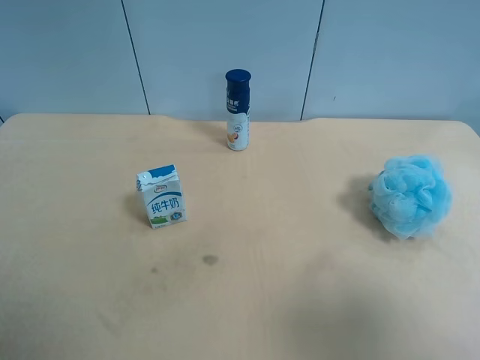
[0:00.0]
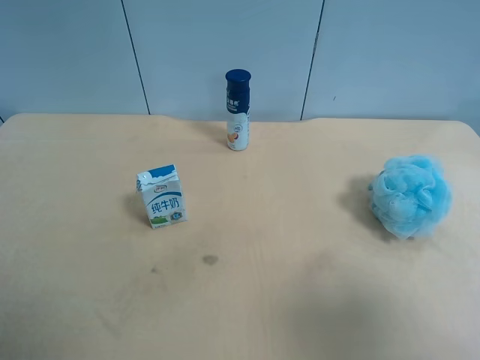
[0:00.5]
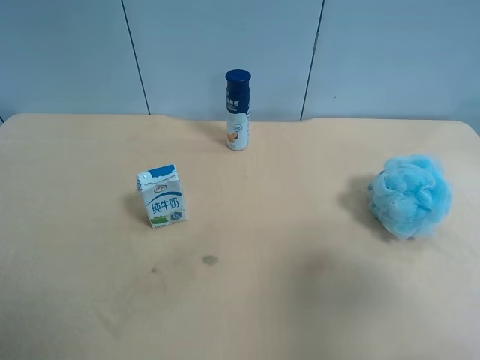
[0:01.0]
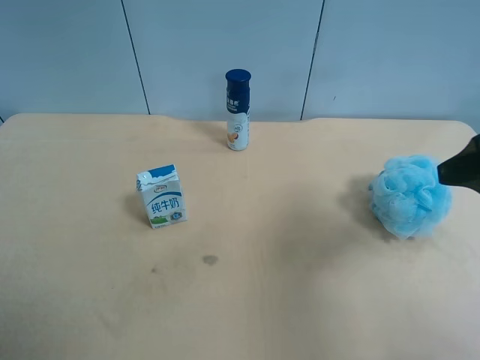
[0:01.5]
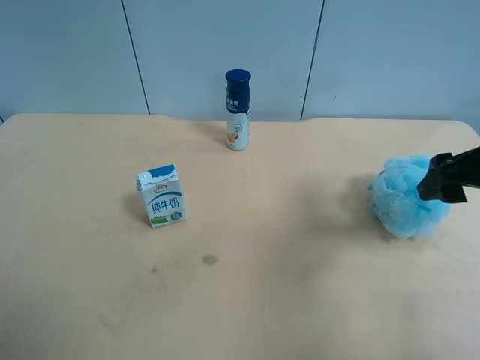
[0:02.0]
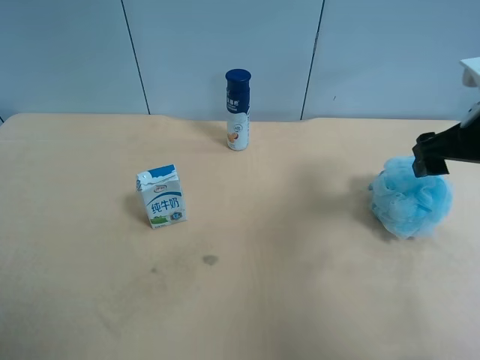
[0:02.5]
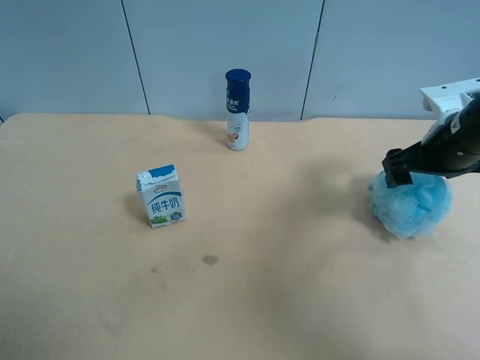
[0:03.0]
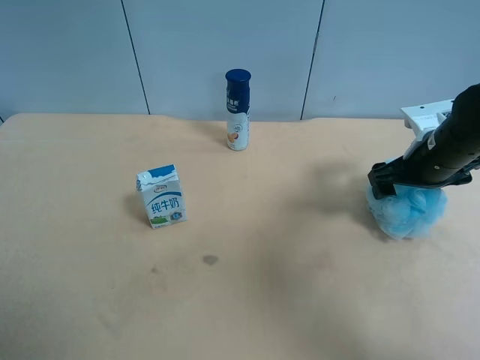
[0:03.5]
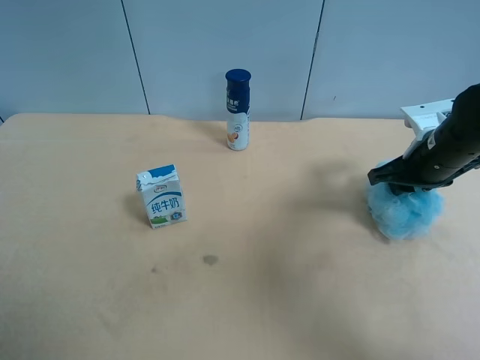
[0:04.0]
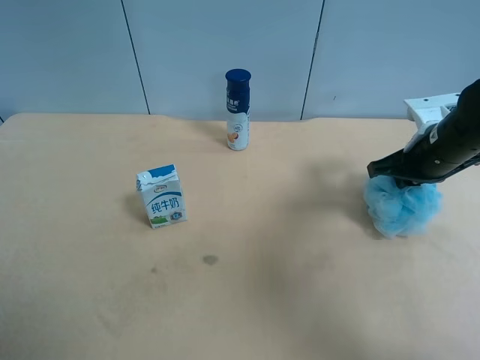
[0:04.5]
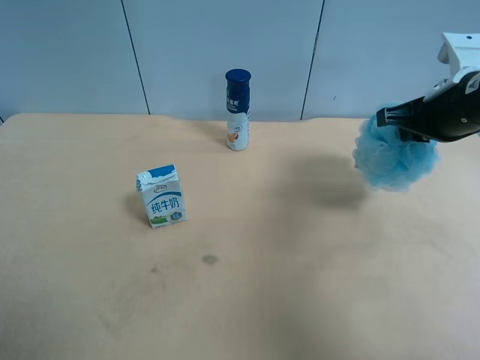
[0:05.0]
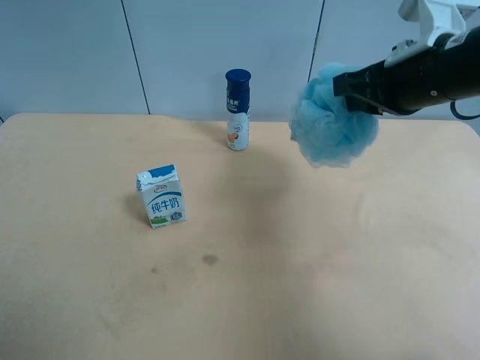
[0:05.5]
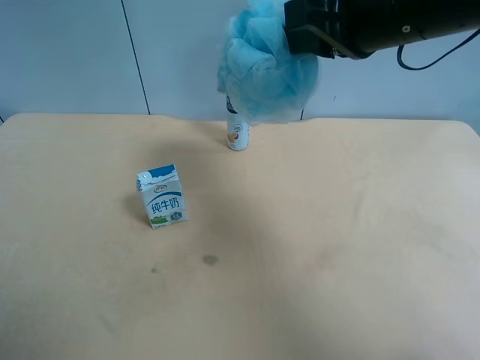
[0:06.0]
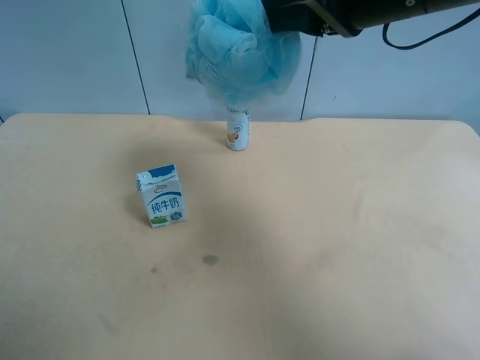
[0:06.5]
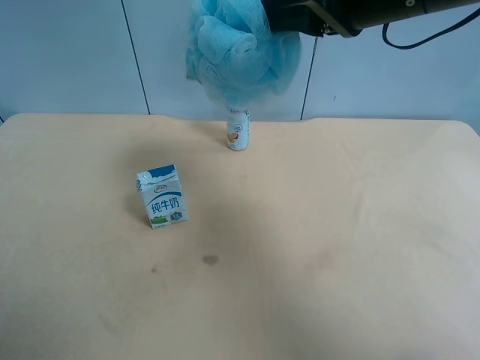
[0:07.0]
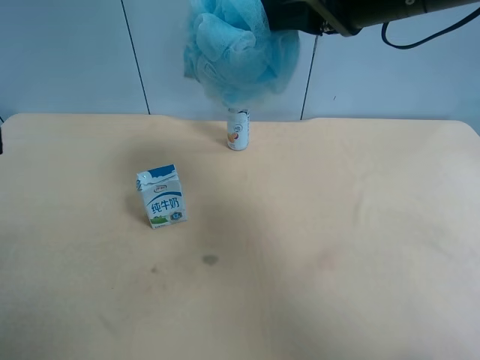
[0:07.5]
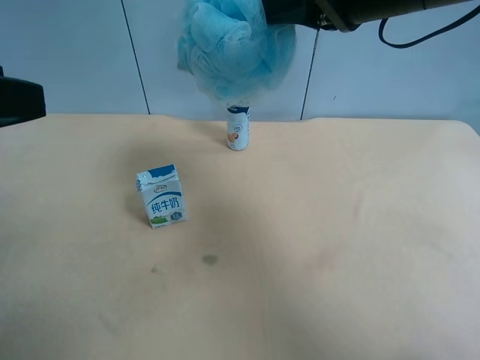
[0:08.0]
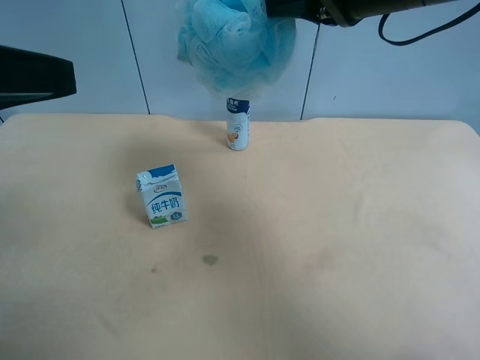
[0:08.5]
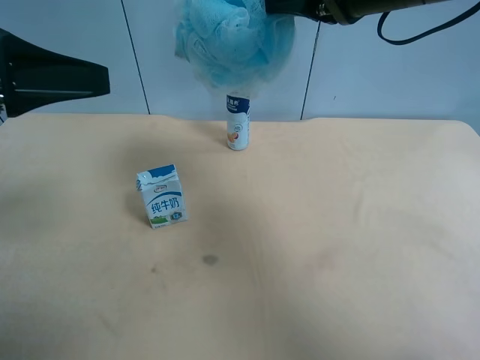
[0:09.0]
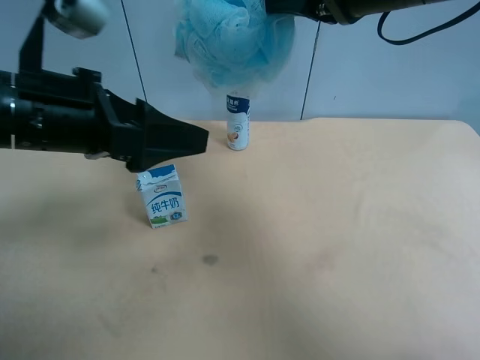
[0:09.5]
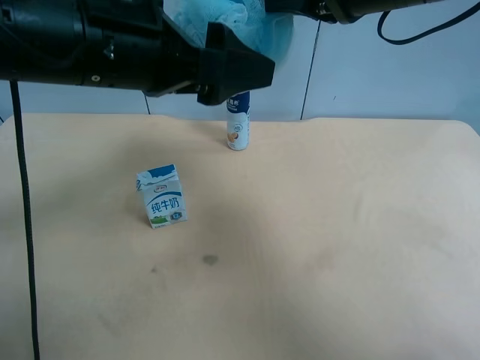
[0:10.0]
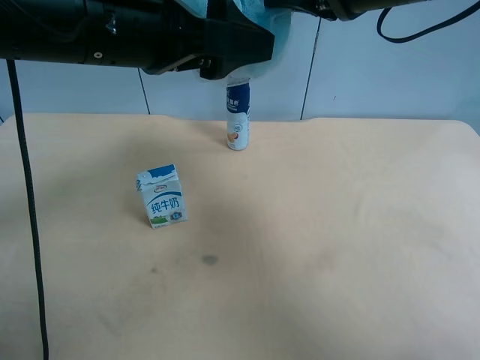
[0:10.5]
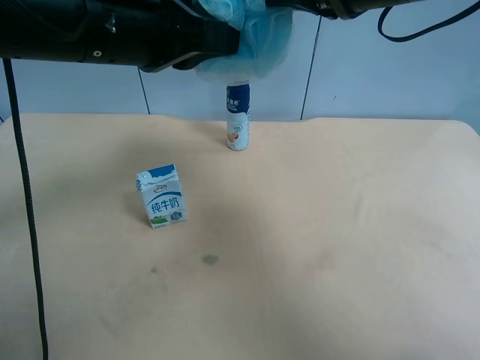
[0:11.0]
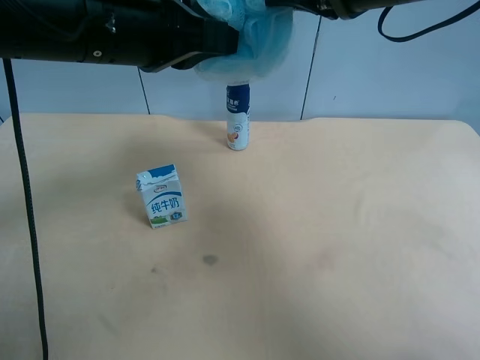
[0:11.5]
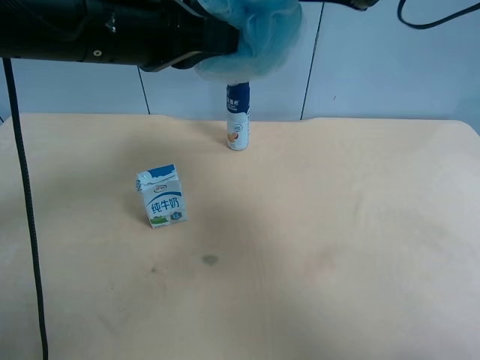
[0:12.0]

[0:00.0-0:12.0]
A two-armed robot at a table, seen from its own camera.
Task of the whole recording: use the right gripper to pick up the item and transfer it from the right gripper to the left gripper.
0:00.0 to 0:02.0: The right gripper shifts about 20 cm forward.
0:02.0 to 0:04.0: The right gripper moves forward and downward, some 15 cm, and closes its fingers.
0:04.0 to 0:06.0: The right gripper moves upward and to the left, approximately 25 cm.
0:06.0 to 0:08.0: The left gripper shifts approximately 15 cm forward and upward.
0:08.0 to 0:10.0: The left gripper goes about 20 cm to the right and forward.
0:10.0 to 0:12.0: The left gripper closes; the right gripper opens its fingers.

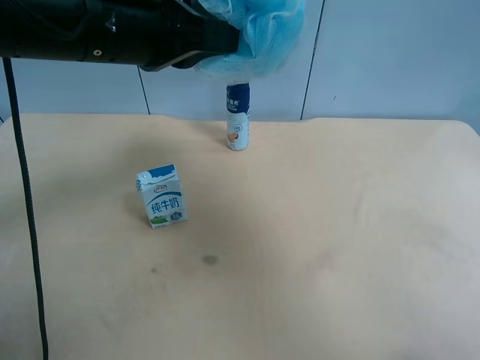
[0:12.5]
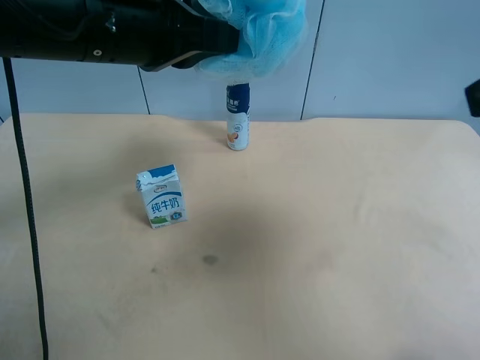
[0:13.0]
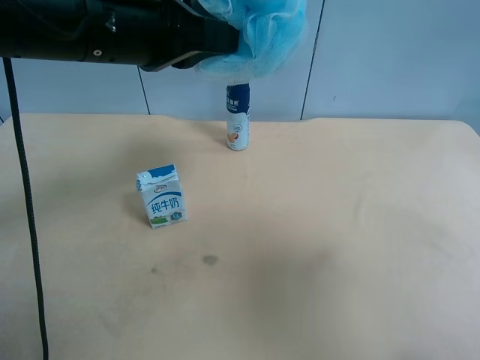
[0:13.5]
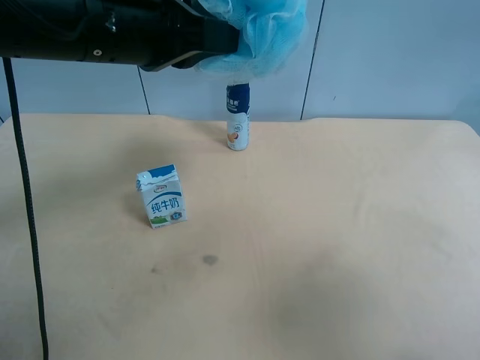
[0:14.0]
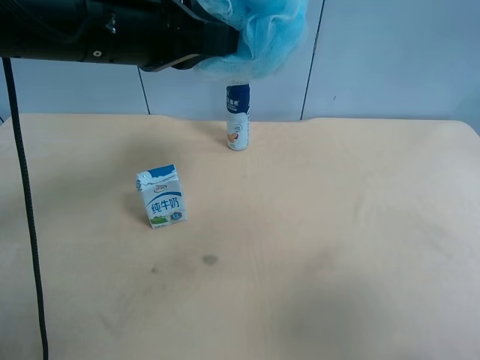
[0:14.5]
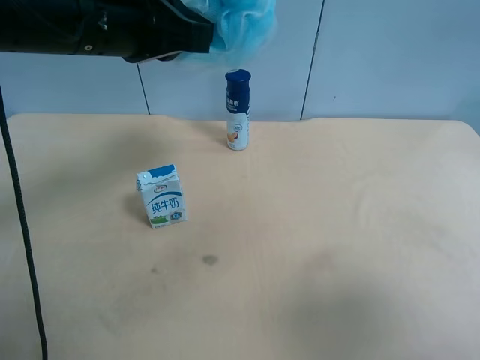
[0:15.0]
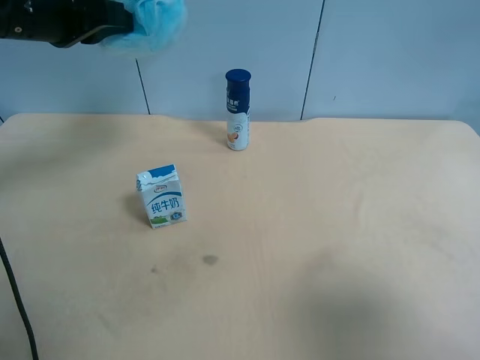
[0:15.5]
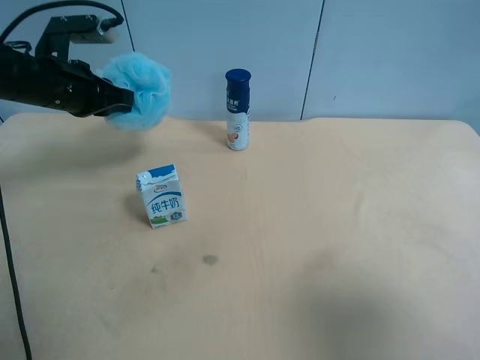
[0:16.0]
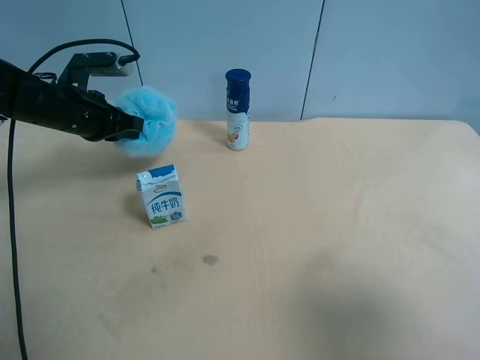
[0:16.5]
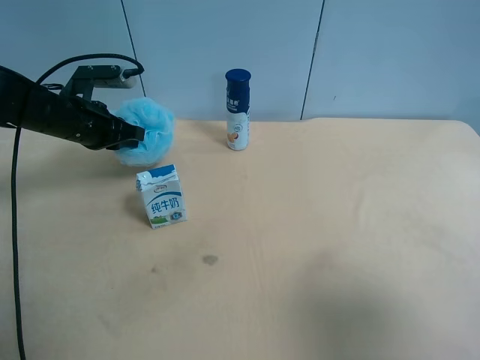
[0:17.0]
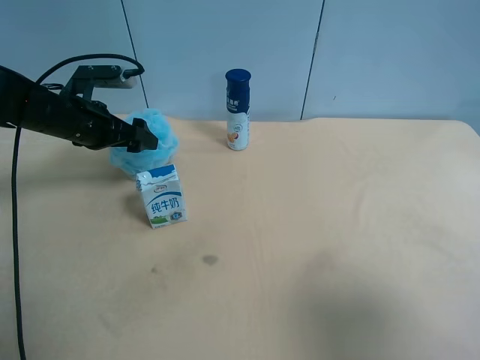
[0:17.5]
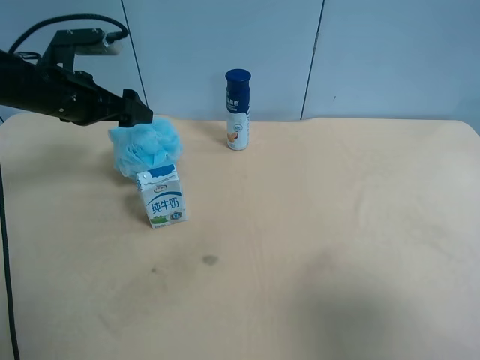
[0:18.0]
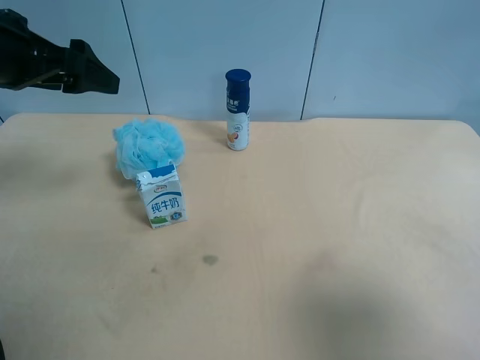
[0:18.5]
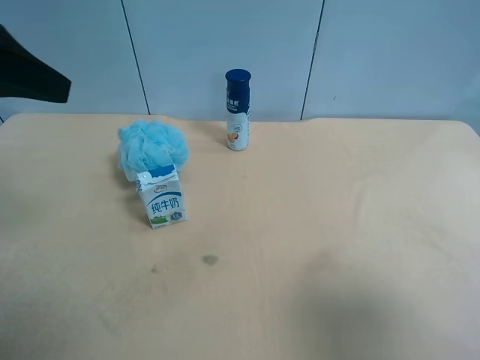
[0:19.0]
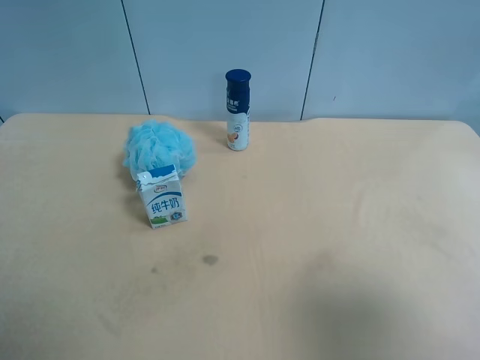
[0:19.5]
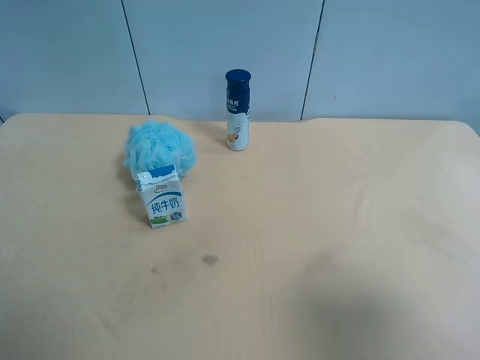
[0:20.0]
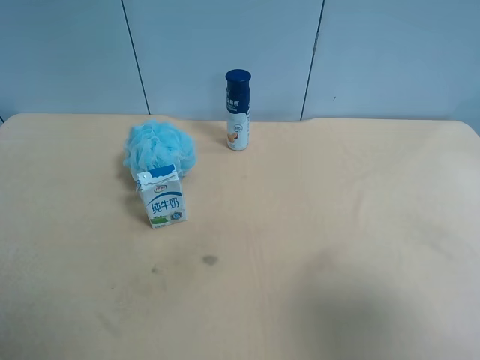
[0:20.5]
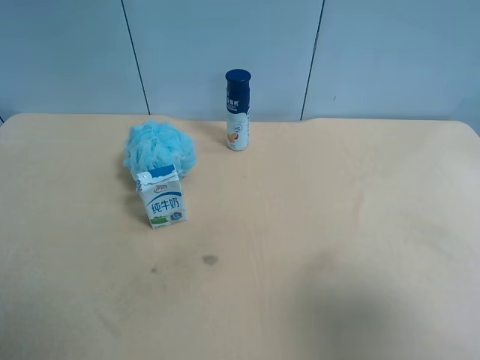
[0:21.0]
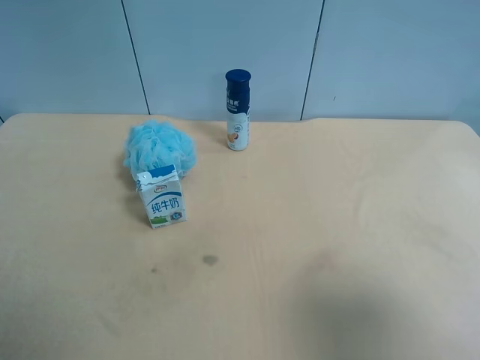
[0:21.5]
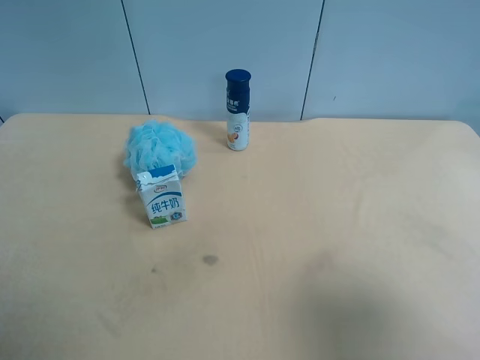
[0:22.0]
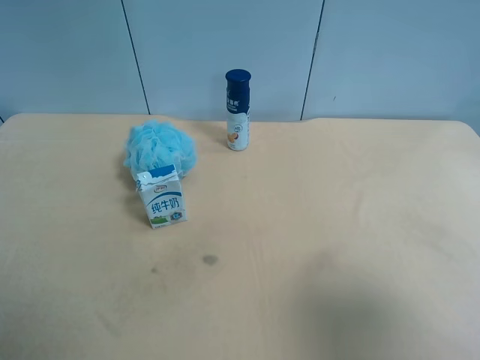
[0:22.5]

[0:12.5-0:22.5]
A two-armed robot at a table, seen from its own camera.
Task of the whole recording: use the right gripper to pick up the item and transfer it from the right gripper to the left gripper.
0:12.5 to 0:14.5: The right gripper is displaced backward, downward and to the right by some 20 cm.
0:14.5 to 0:16.5: The left gripper goes approximately 25 cm downward, to the left and forward.
0:16.5 to 0:18.5: The left gripper moves upward and backward, some 15 cm, and opens up.
0:18.5 to 0:20.5: The left gripper travels backward by approximately 25 cm.
0:20.5 to 0:22.5: Both grippers stay put.
